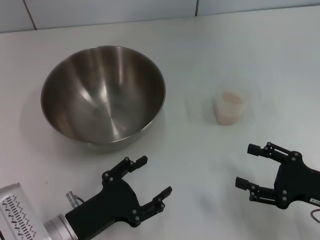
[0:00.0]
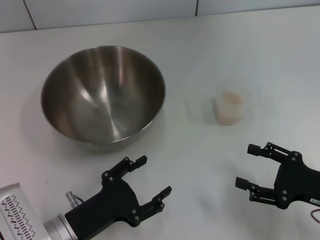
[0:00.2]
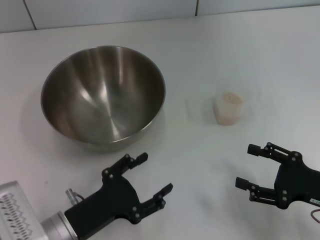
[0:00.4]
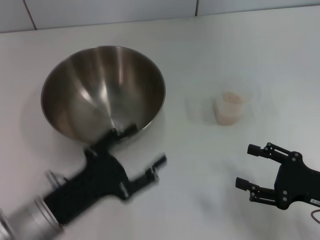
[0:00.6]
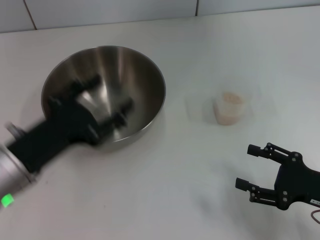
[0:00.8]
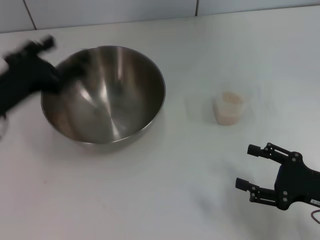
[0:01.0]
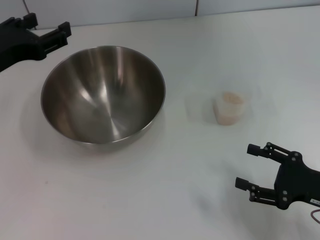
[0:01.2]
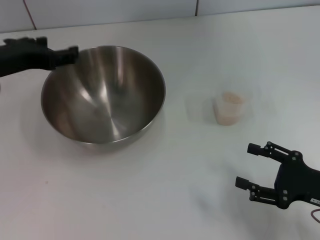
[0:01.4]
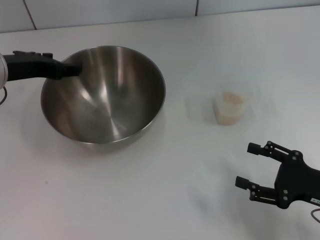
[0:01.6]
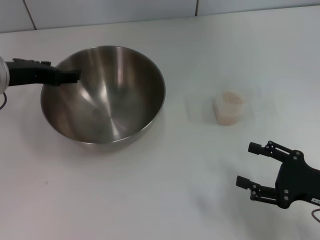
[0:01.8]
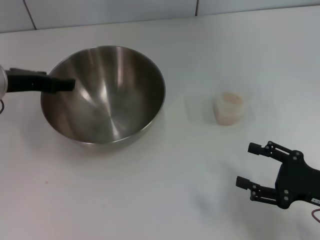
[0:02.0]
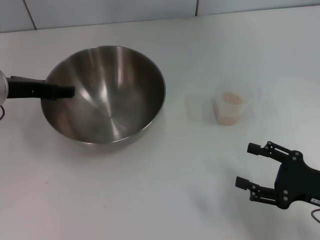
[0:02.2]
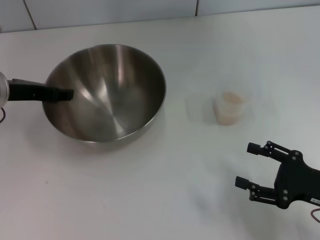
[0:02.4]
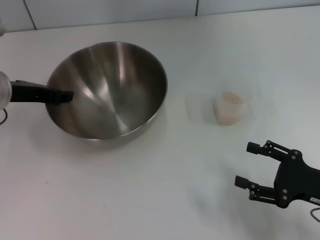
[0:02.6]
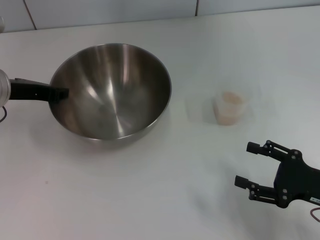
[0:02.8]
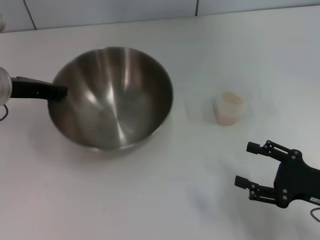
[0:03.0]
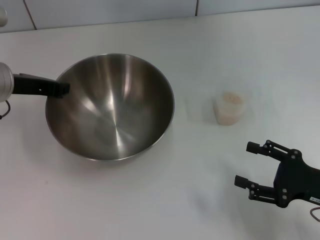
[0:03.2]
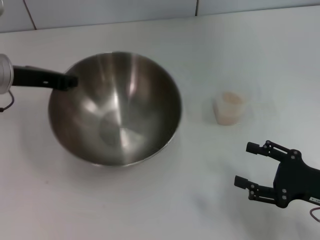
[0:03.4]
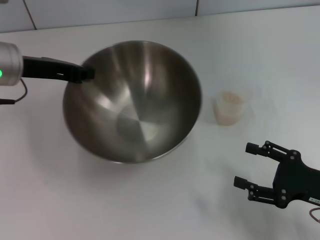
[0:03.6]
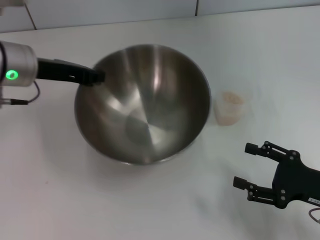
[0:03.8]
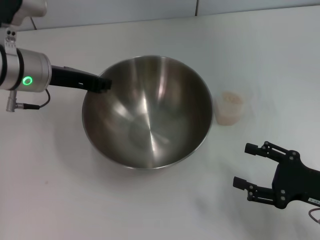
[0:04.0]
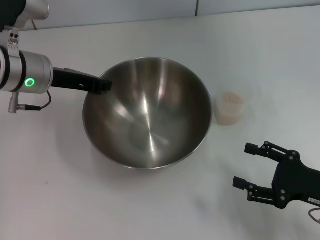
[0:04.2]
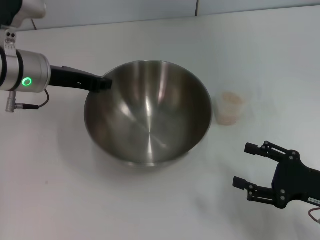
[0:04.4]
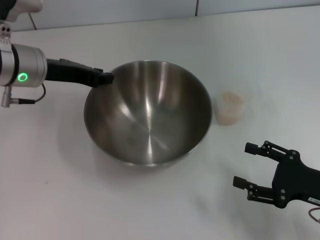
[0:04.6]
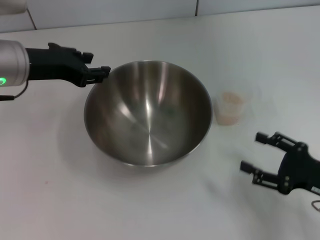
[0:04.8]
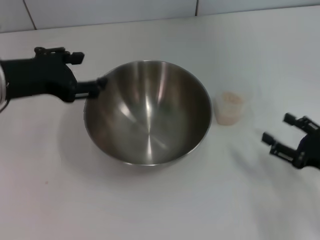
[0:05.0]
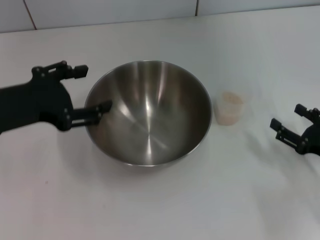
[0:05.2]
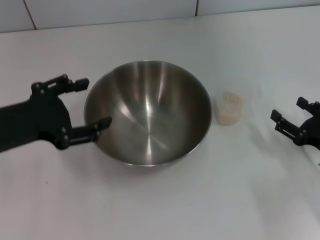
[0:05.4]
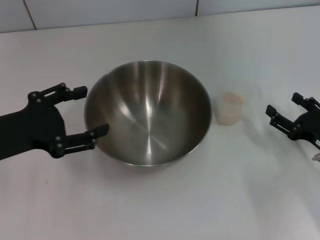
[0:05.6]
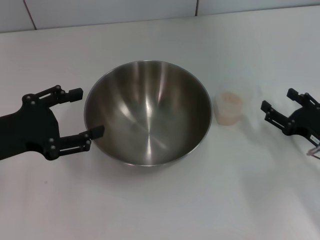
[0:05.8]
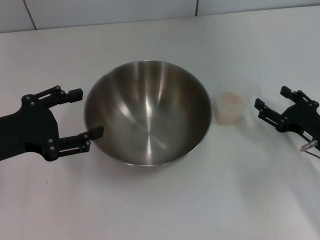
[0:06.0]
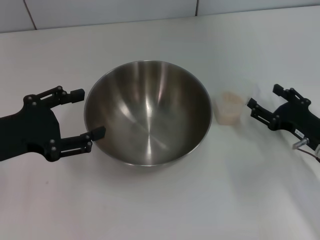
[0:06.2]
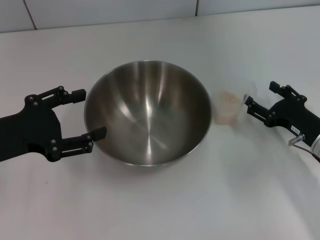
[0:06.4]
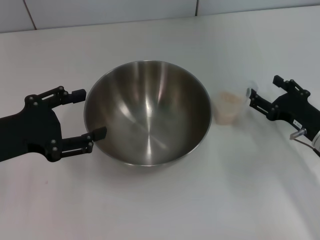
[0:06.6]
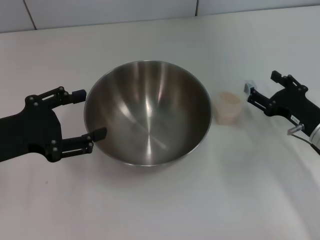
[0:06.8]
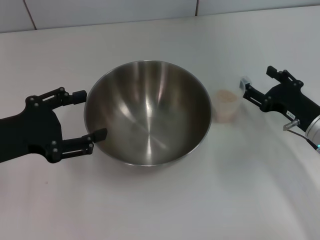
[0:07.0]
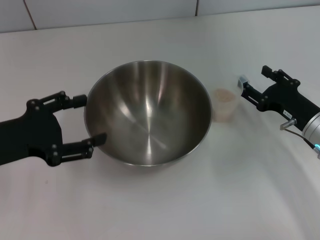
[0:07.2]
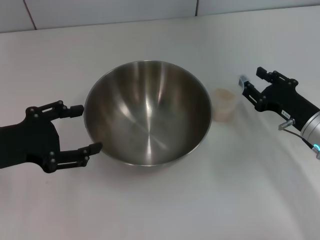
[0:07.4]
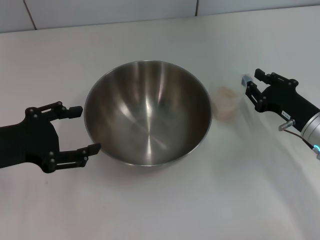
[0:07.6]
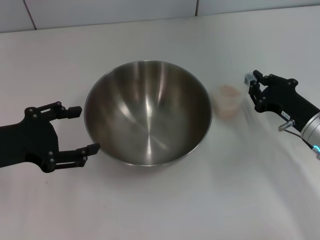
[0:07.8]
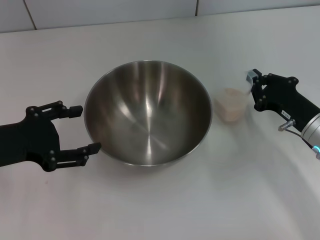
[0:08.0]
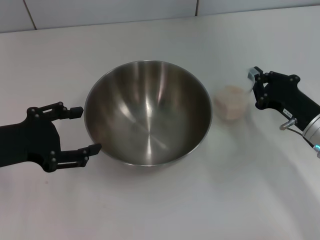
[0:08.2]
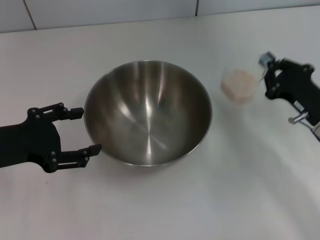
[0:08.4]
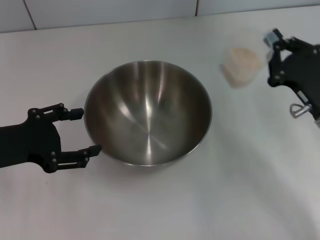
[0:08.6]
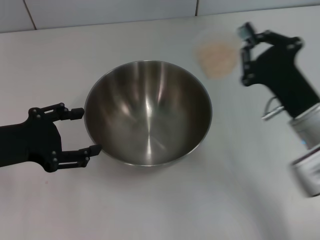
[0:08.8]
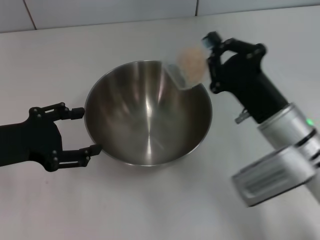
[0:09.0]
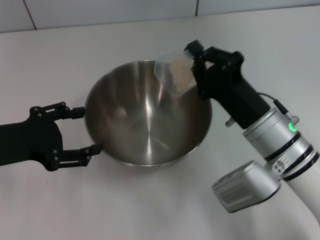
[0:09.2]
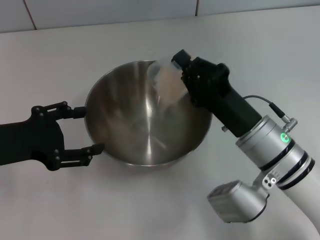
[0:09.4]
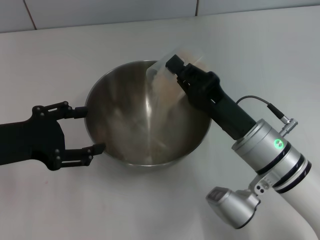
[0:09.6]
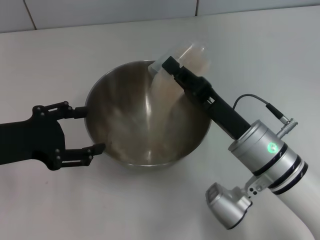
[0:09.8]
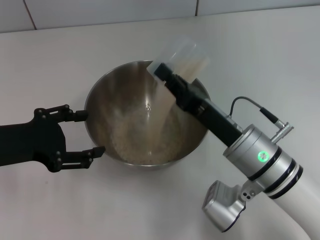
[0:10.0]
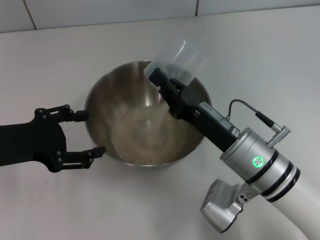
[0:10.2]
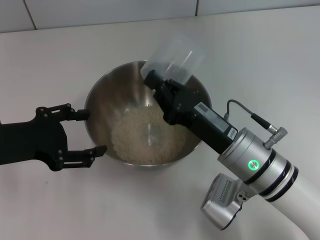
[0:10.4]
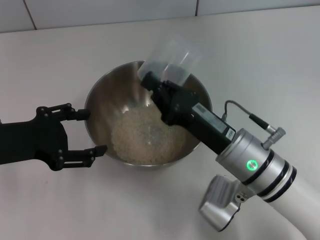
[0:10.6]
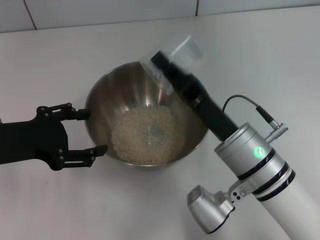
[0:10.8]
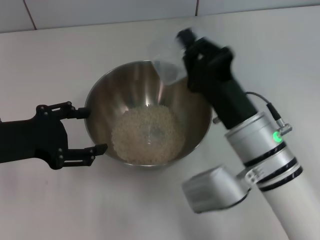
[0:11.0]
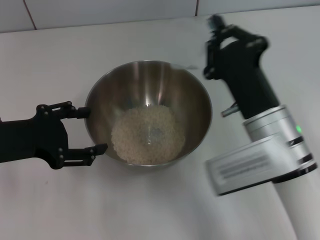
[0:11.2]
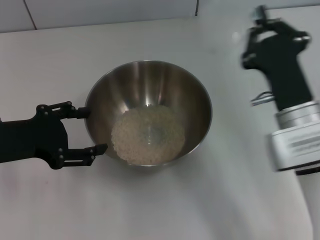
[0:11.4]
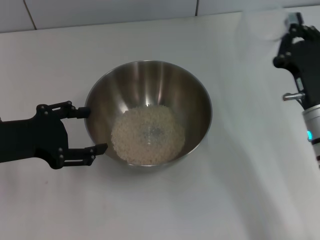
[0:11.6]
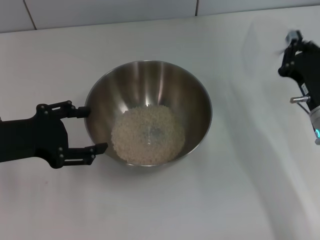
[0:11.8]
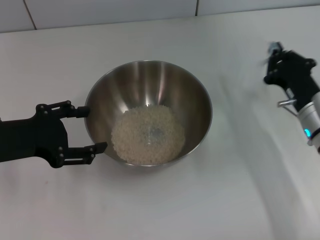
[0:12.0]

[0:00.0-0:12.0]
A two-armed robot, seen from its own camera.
Task of the whole recording: Place the bowl in the middle of the table with one hand and pour the rice from the grain cup into it with the other hand.
Step, 0:00.0 to 0:03.4: Pick up the bowl with the left gripper.
Step, 0:03.6 to 0:04.8: Place the bowl in the center of view with the left gripper.
Step, 0:05.0 to 0:08.4: Pick up the cup with rice in it with the right gripper.
Step, 0:08.8 to 0:11.0: Pour the rice from the cup into the bowl with the right gripper.
0:00.0 to 0:01.6: The left gripper travels forward and upward by approximately 25 cm.
0:01.6 to 0:03.0: The left gripper closes its fingers.
0:04.4 to 0:06.0: The left gripper travels backward and to the left by some 15 cm, and opens its fingers. Meanwhile the right gripper goes roughly 5 cm forward.
0:06.0 to 0:07.6: The right gripper closes.
0:07.6 to 0:09.0: The right gripper goes roughly 10 cm to the left, and closes its fingers.
0:09.0 to 0:10.4: The right gripper heads to the left, covering about 5 cm.
0:10.4 to 0:12.0: The right gripper travels to the right and forward by approximately 15 cm.

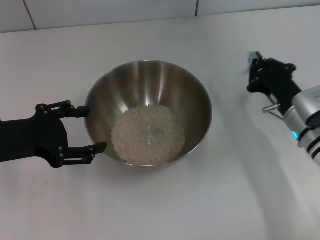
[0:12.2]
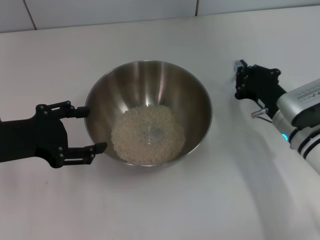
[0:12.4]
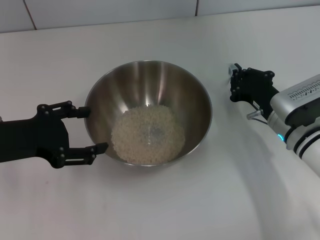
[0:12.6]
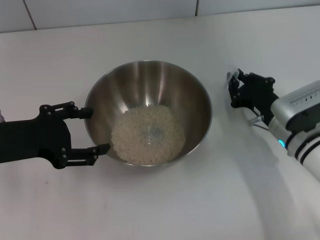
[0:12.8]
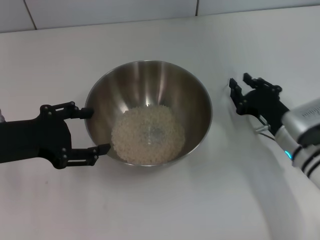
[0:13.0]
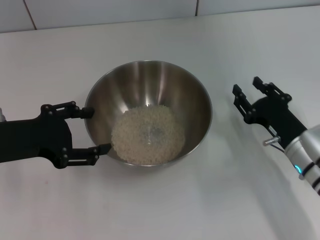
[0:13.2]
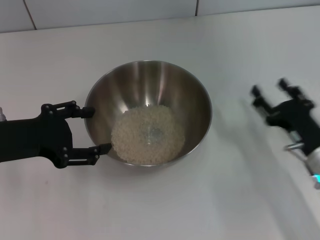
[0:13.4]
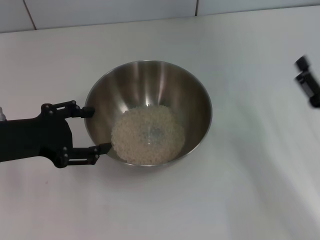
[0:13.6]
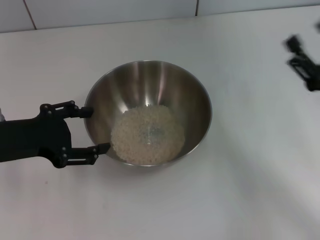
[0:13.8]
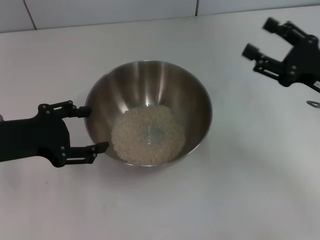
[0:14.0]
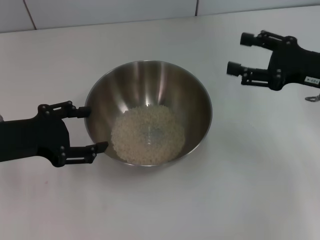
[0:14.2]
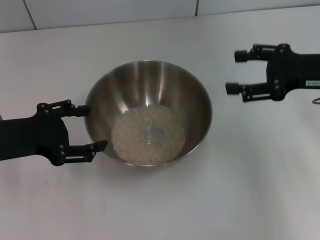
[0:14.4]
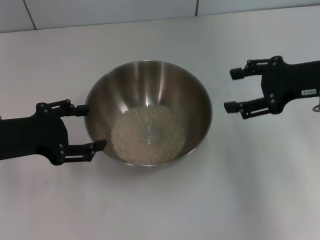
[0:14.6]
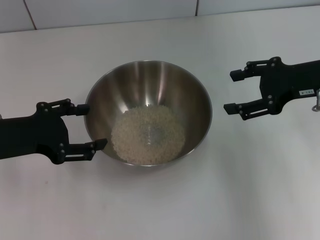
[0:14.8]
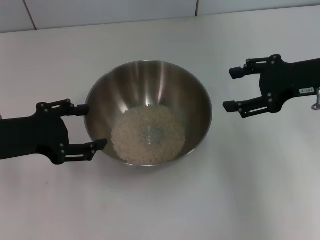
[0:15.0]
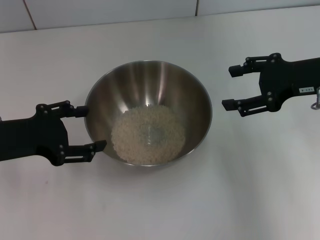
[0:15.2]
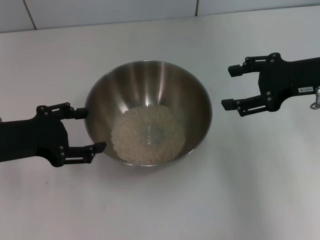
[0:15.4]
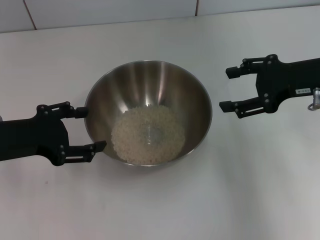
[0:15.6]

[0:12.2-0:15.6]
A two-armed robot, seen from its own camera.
Task of the whole recording: Place the bowl in the middle of the table with one hand and pour the rice from the grain cup into it with the other hand.
Step, 0:12.2 to 0:13.4: Place the cup on the table with the right gripper.
0:12.2 to 0:13.8: The right gripper moves backward, to the right and upward, roughly 10 cm, and opens its fingers.
0:13.8 to 0:15.6: The right gripper travels upward and forward by some 15 cm.
